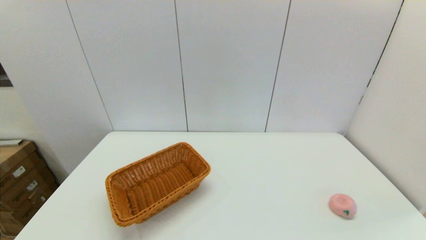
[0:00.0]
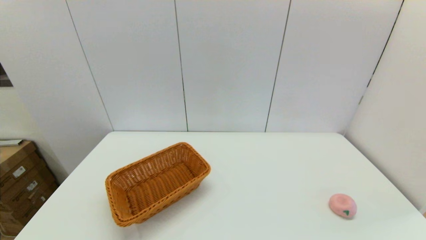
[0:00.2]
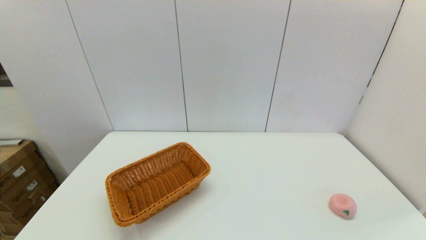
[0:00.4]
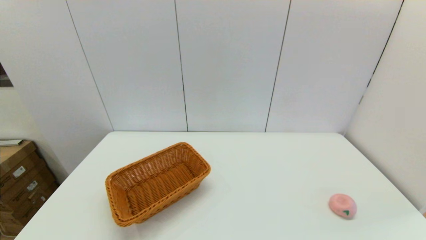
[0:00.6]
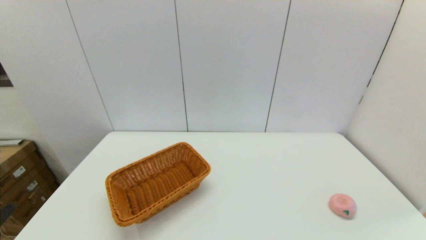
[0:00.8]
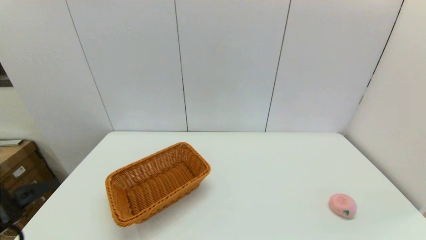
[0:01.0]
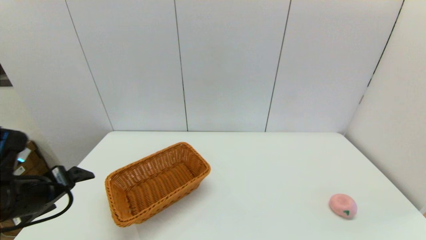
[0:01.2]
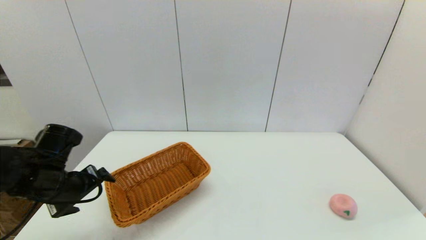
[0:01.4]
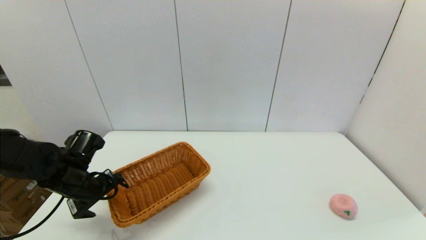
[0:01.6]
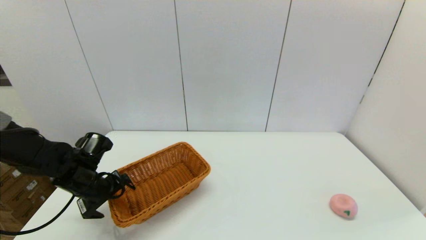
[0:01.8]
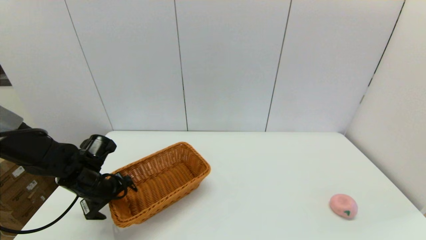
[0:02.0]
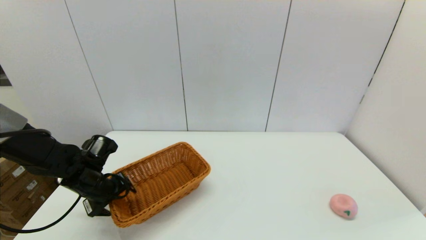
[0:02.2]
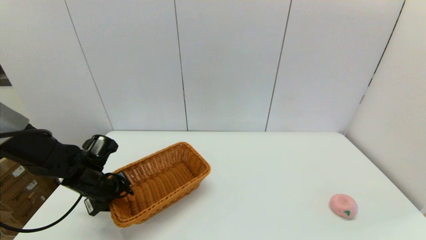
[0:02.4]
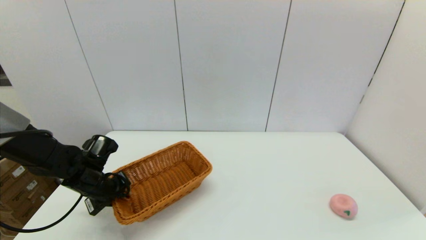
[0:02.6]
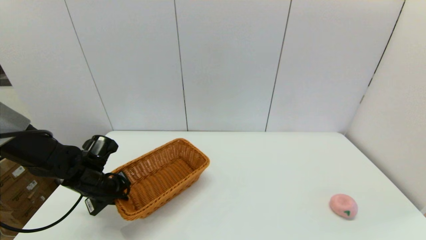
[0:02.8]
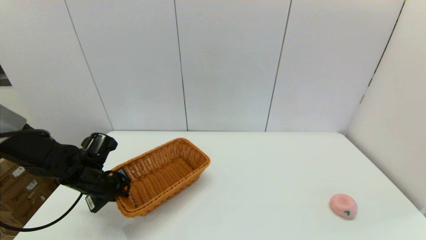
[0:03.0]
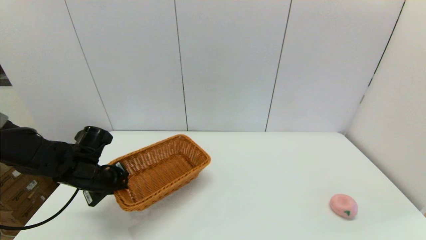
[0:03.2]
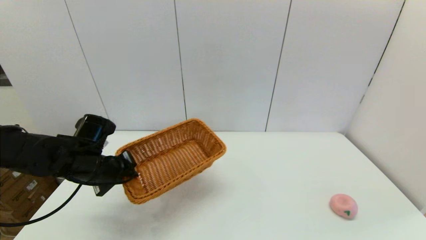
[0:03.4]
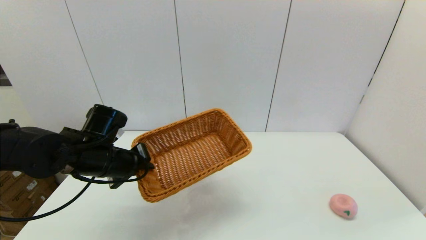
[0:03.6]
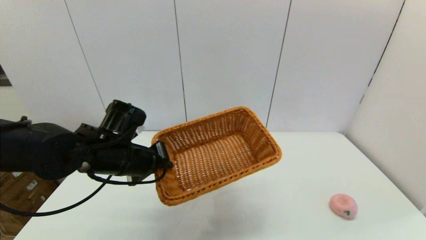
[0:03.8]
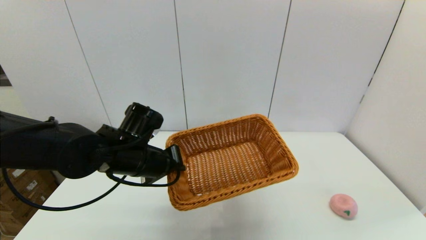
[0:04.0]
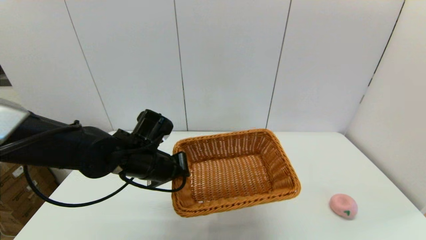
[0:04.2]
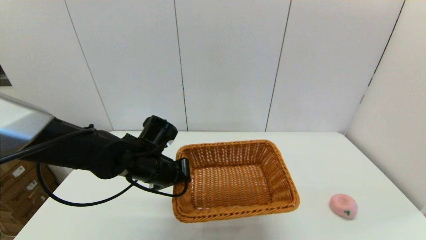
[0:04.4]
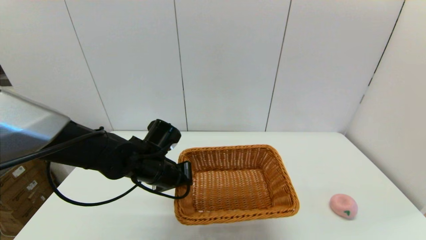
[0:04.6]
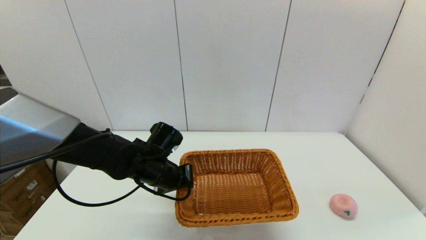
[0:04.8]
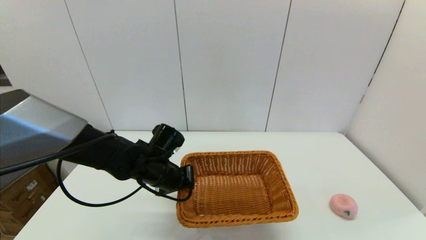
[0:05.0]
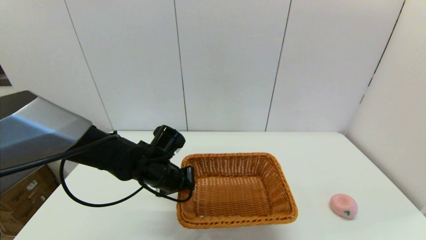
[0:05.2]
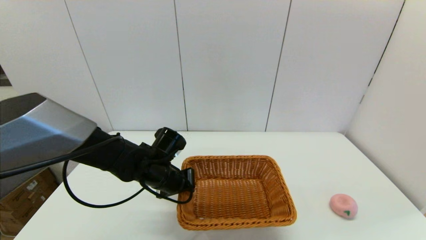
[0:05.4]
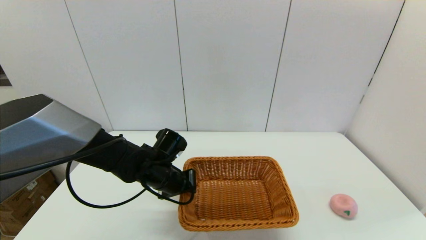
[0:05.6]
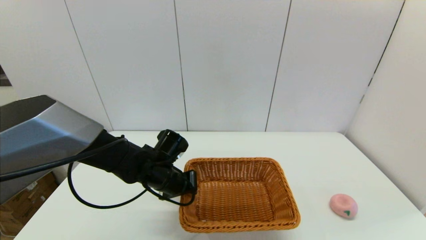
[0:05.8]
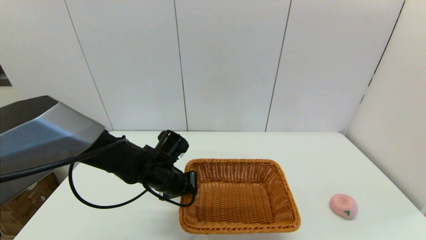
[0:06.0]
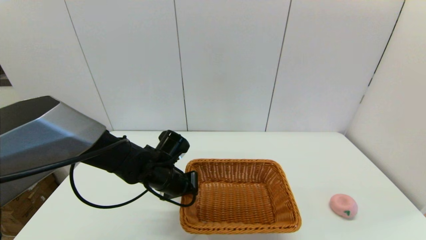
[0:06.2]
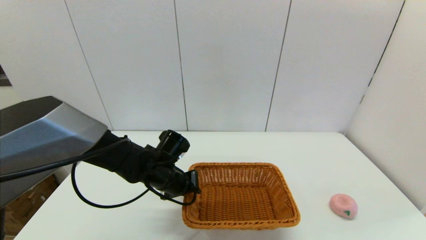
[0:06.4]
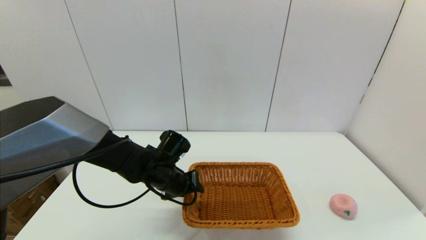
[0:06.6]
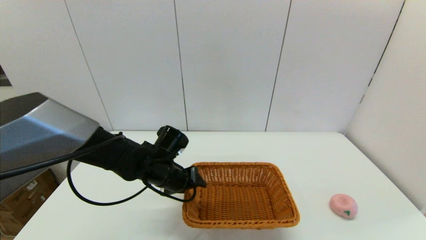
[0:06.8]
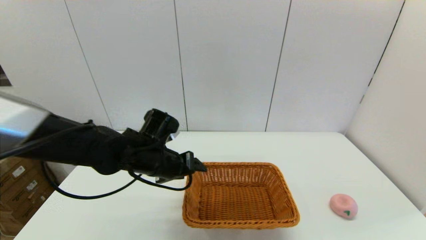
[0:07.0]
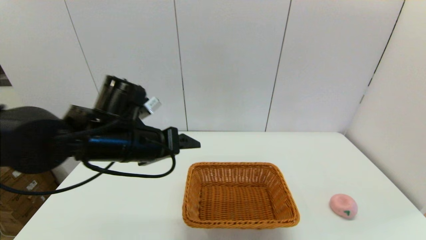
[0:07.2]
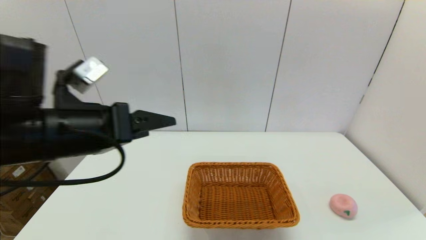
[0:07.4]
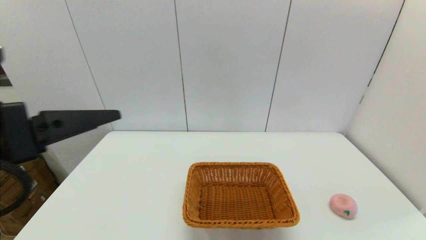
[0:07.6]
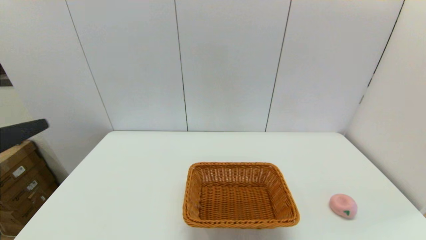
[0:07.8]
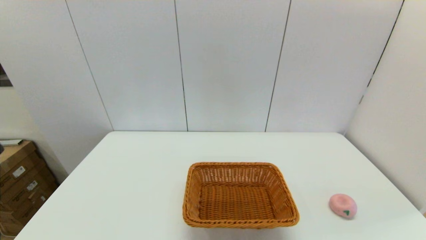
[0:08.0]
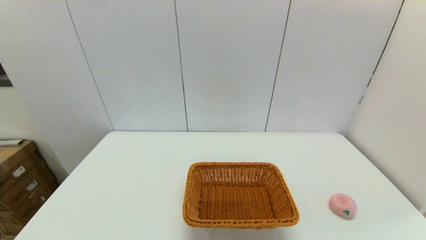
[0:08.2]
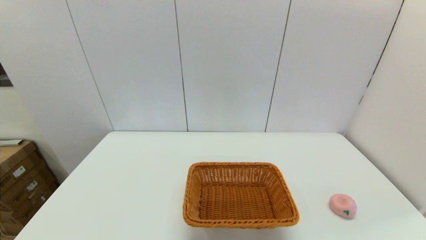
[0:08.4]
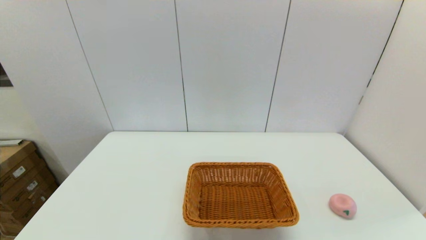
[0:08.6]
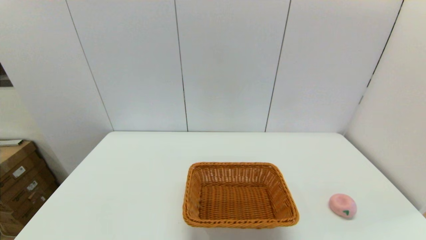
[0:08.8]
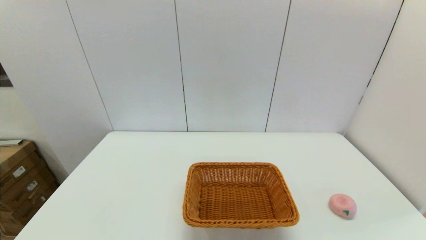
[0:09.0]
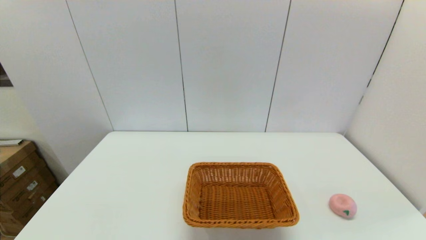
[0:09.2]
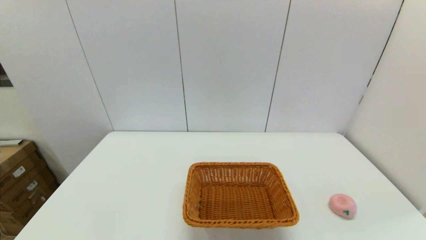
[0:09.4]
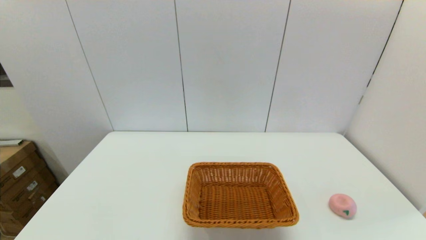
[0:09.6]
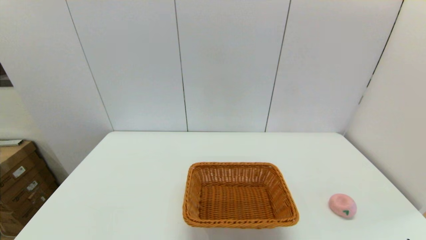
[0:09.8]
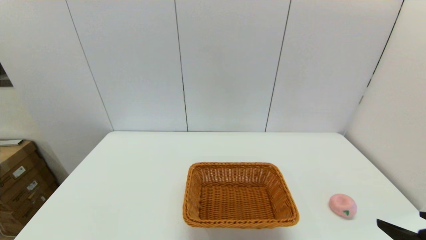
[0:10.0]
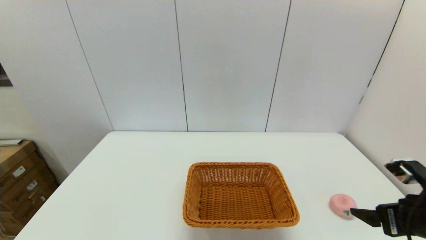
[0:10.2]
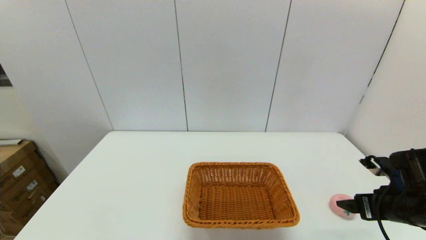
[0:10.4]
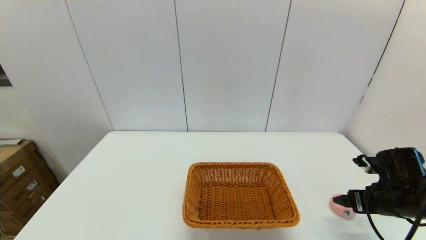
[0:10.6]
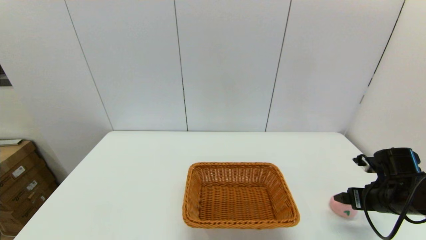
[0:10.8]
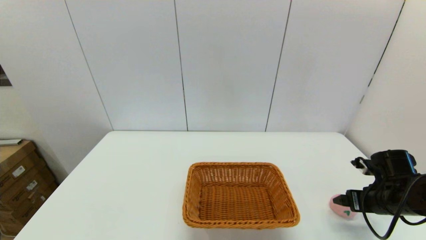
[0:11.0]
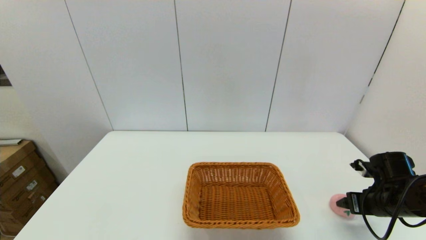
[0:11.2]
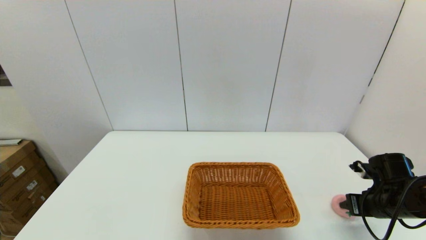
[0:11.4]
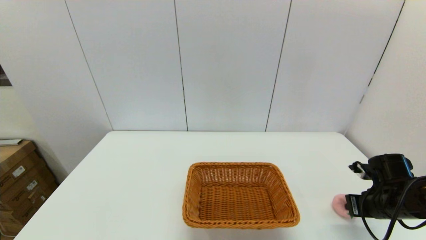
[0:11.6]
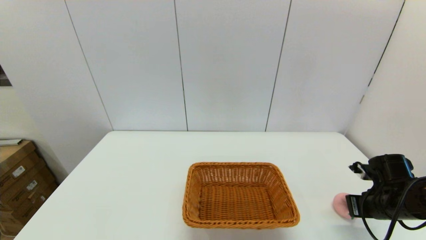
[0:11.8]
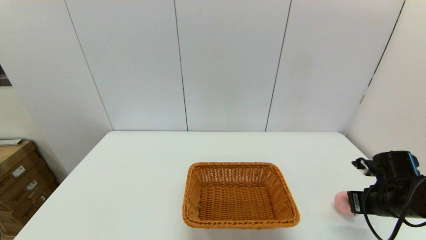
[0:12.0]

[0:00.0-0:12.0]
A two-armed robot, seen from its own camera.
Step, 0:00.0 to 0:02.6: Grasp the light basket with the left gripper.
Step, 0:02.8 to 0:06.6: Place the light basket on the middle of the table with the left gripper.
Step, 0:06.8 to 0:11.6: Grasp the peach with the right gripper.
0:00.0 to 0:01.6: The left gripper travels forward by some 30 cm.
0:01.6 to 0:03.0: The left gripper closes its fingers.
0:03.0 to 0:04.4: The left gripper goes roughly 15 cm to the right.
0:04.4 to 0:06.0: There are only small adjustments of the grippers.
0:06.0 to 0:07.6: The left gripper shifts approximately 30 cm upward, backward and to the left, and opens its fingers.
0:07.6 to 0:09.0: The left gripper heads downward and backward, covering about 25 cm.
0:09.0 to 0:10.4: The right gripper shifts some 25 cm forward.
0:10.4 to 0:12.0: The right gripper closes.

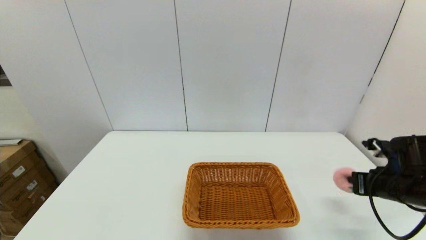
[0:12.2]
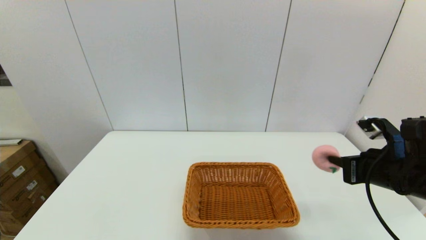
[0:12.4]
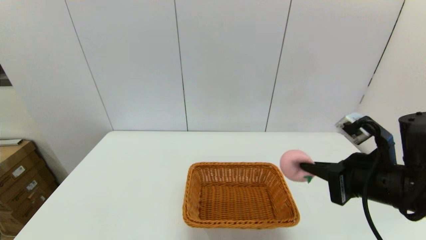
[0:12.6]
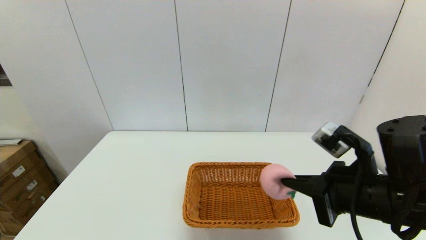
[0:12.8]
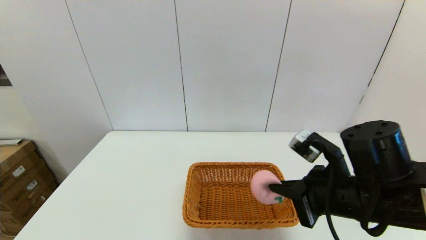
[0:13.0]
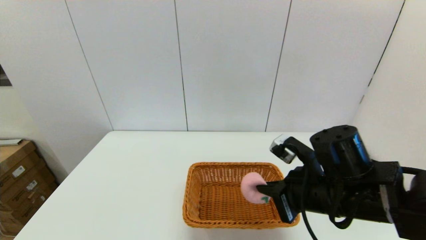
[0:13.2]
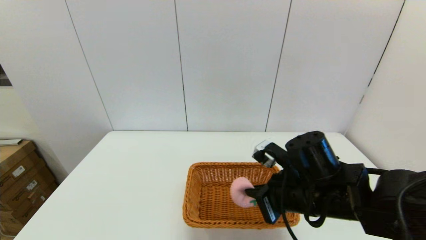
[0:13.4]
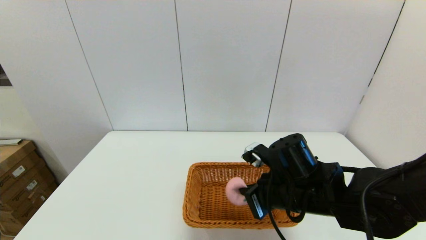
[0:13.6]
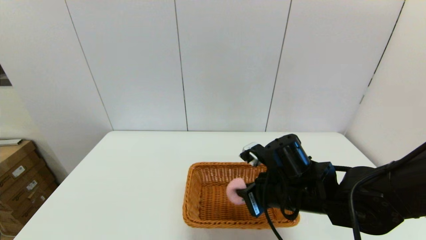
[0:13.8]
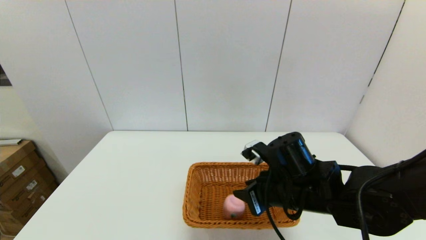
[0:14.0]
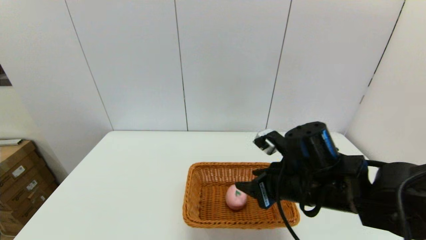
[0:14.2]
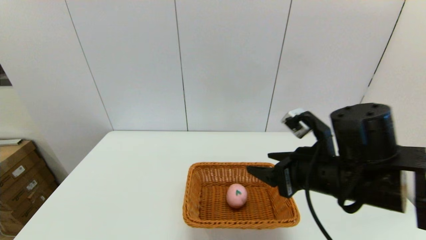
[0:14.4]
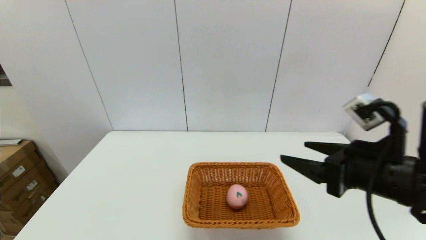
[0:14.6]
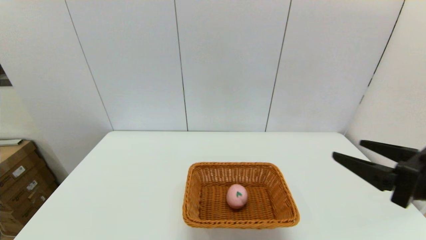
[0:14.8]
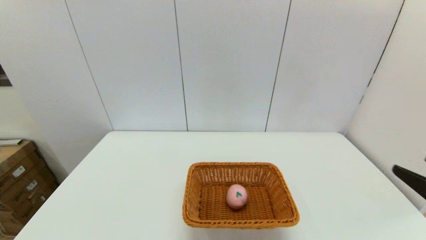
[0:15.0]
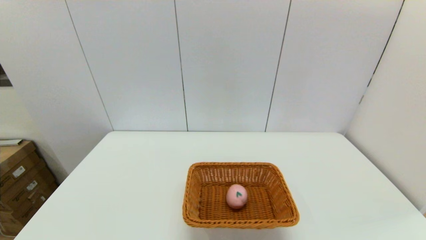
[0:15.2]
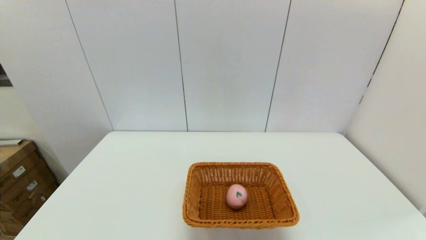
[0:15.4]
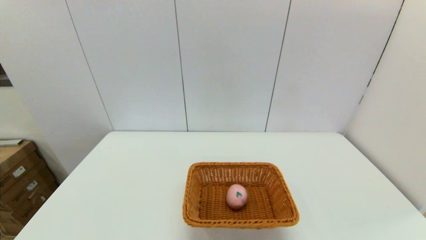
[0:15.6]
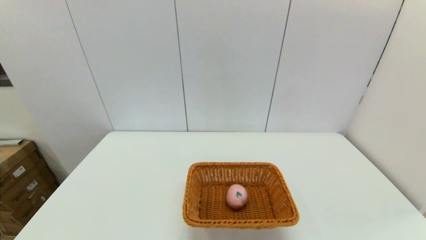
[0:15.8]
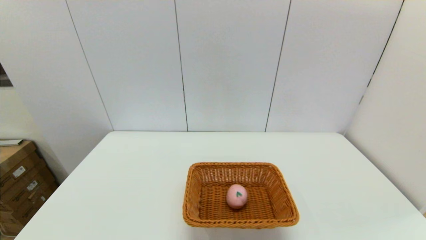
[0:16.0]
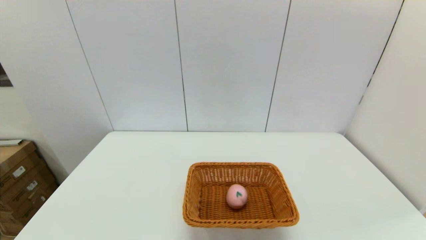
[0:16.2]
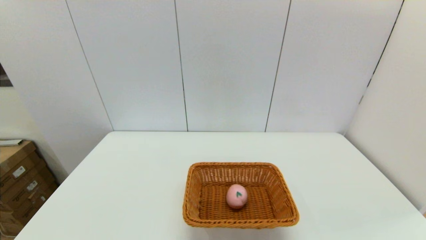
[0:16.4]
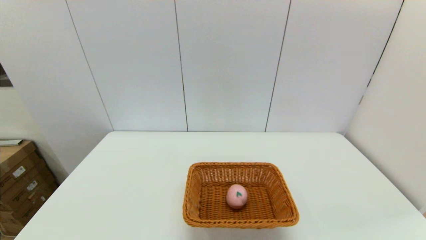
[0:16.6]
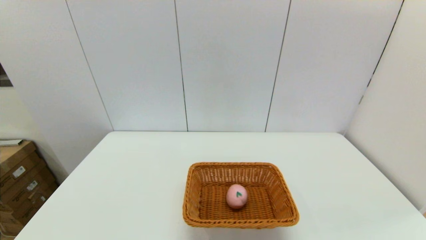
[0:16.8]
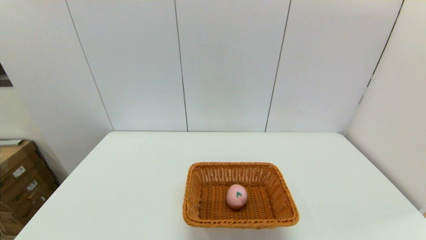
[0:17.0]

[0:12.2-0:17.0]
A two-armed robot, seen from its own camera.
Step, 0:12.2 to 0:14.0: Place the peach into the light basket with the right gripper.
0:12.2 to 0:13.8: The right gripper goes some 20 cm to the left.
0:13.8 to 0:15.4: The right gripper is displaced backward and to the right by some 30 cm, and opens up.
